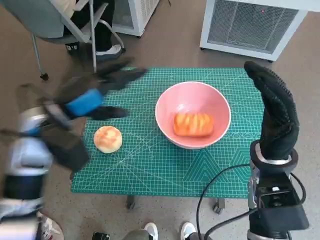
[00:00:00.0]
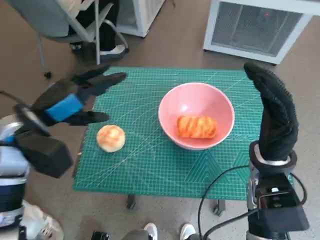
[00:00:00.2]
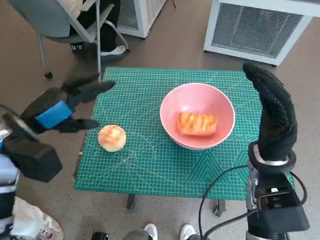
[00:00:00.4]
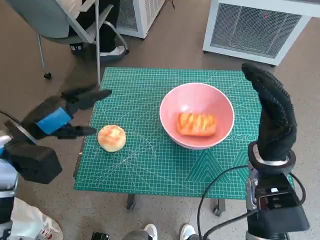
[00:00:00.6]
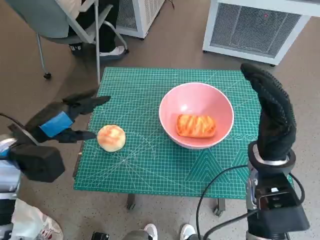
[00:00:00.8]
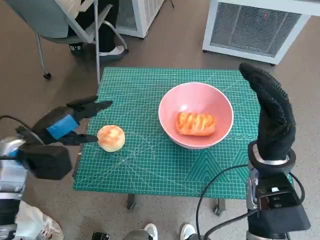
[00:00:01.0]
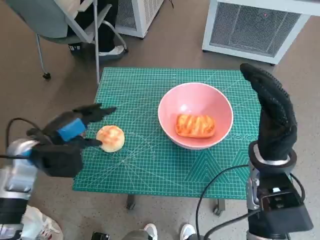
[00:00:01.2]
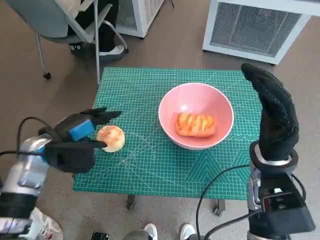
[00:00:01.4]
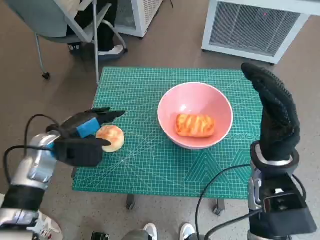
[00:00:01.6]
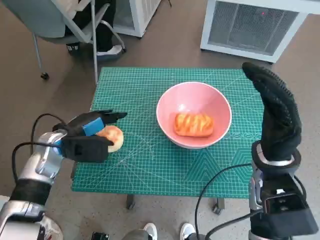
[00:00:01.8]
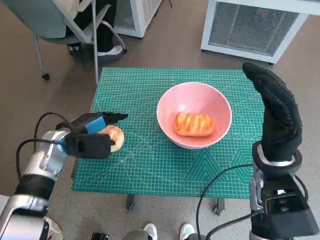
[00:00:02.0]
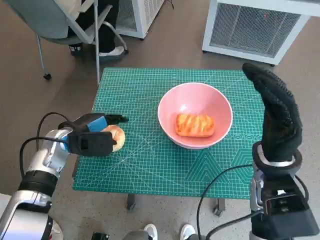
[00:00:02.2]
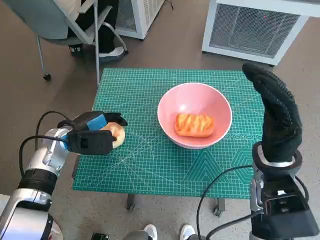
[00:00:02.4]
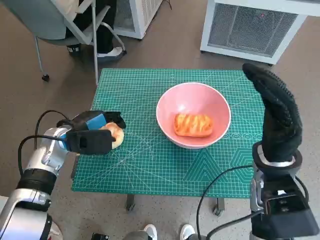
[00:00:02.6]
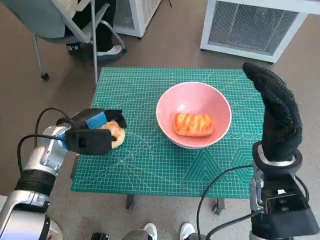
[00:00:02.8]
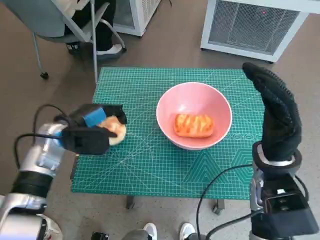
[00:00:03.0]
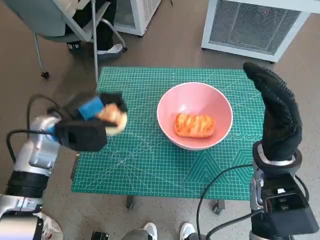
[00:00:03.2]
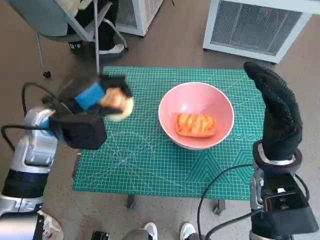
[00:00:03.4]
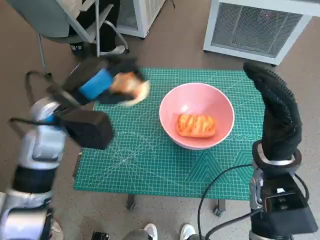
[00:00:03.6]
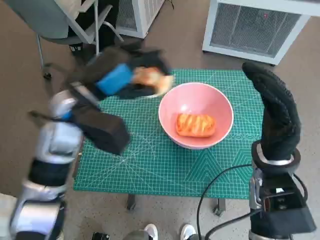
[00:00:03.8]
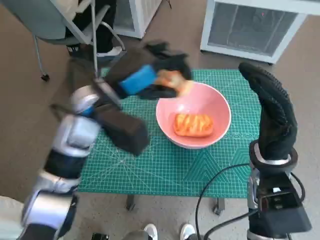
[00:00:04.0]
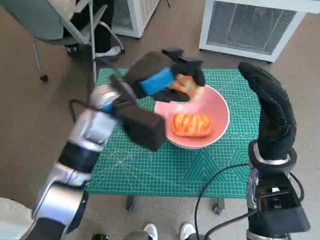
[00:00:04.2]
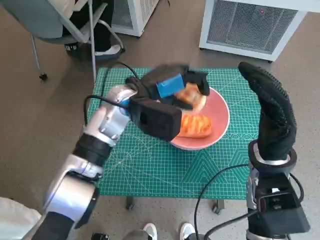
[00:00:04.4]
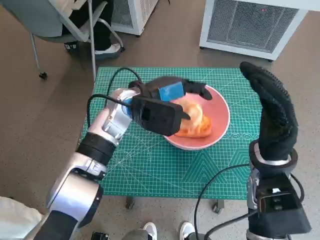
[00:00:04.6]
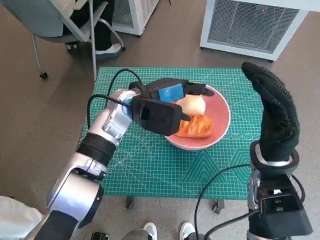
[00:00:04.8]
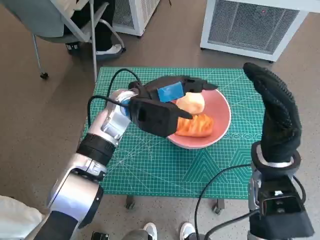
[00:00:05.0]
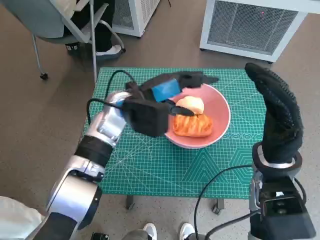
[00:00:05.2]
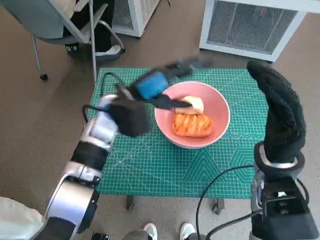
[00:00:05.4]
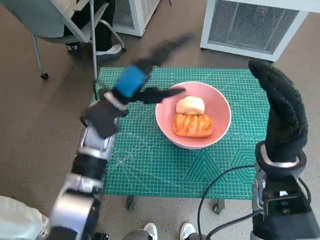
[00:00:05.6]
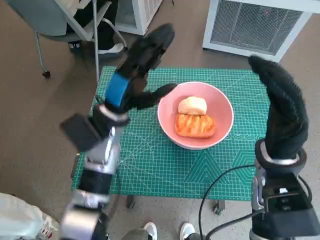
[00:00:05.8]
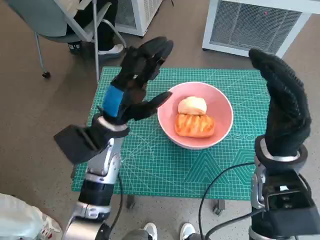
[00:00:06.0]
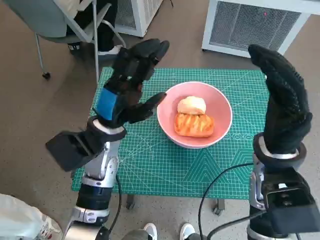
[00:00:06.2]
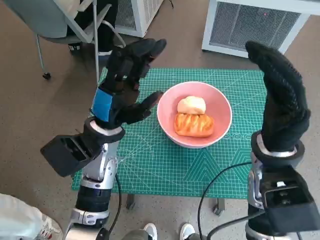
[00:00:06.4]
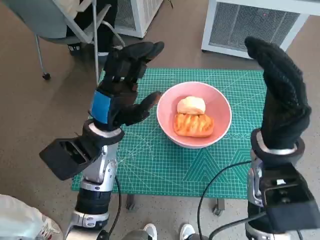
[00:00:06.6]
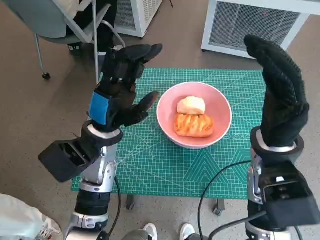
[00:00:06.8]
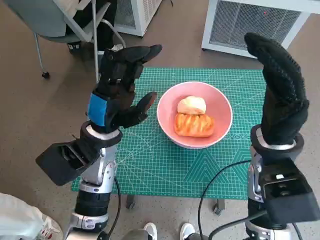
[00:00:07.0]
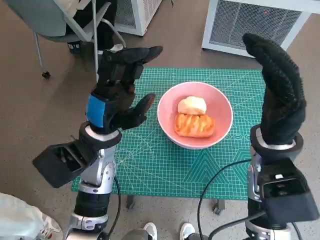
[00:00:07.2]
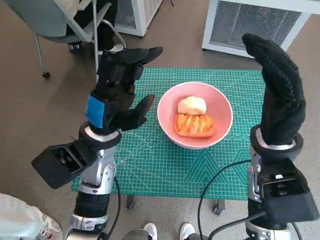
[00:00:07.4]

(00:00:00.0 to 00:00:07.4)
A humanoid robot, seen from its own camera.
Task of the whole recording: Push the bowl to the center of the table and put the bread into the bowl.
Step, 00:00:00.0 - 00:00:02.6: Grasp the round bread with left hand.
Step, 00:00:02.8 - 00:00:05.4: Place the round bread in pink bowl with left hand.
00:00:00.0 - 00:00:01.4: The left hand shifts roughly 10 cm downward and to the left.
00:00:03.0 - 00:00:04.4: The left hand moves to the right and upward, roughly 15 cm.
00:00:04.4 - 00:00:06.0: The left hand shifts by roughly 10 cm.
